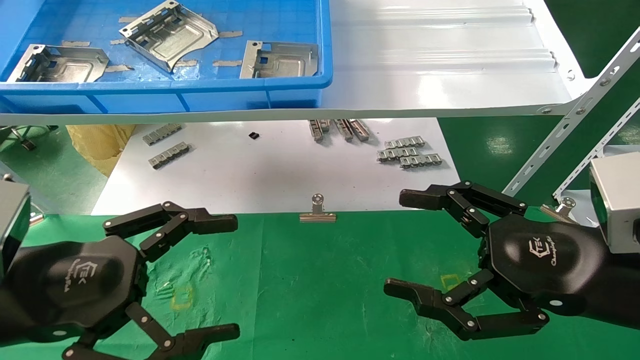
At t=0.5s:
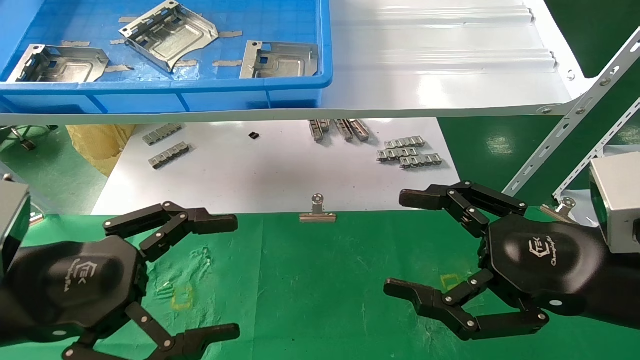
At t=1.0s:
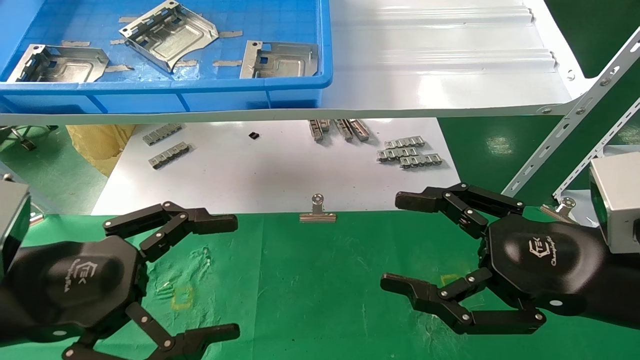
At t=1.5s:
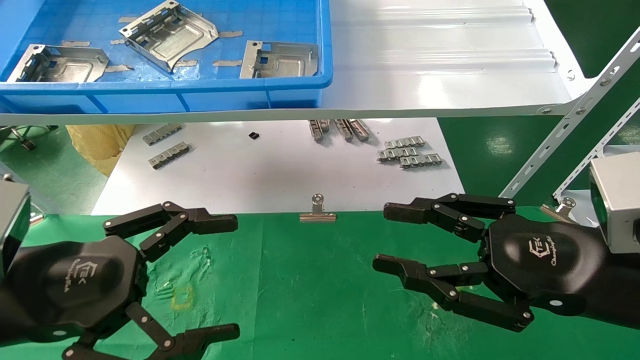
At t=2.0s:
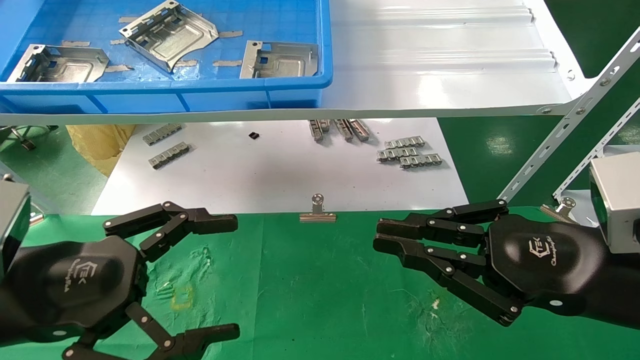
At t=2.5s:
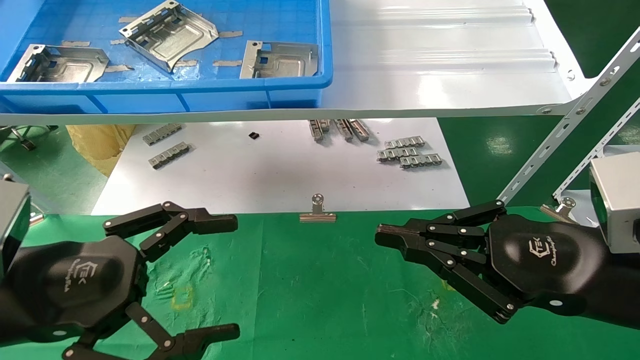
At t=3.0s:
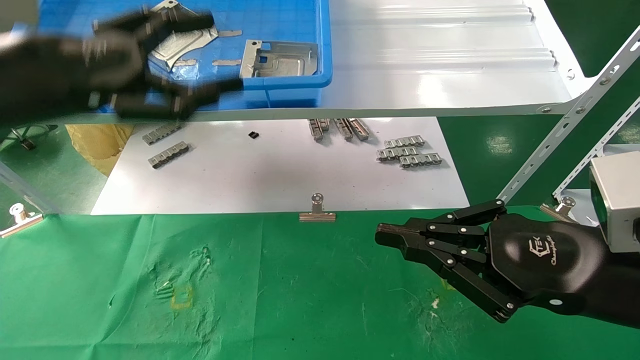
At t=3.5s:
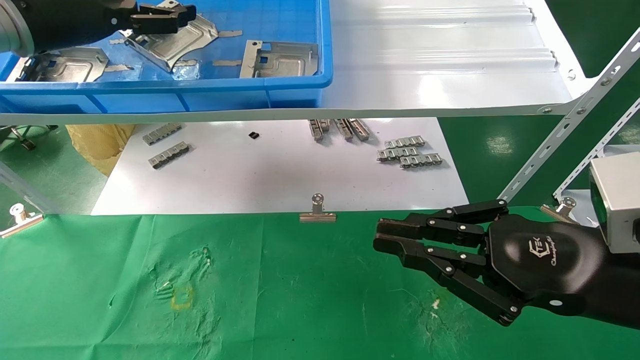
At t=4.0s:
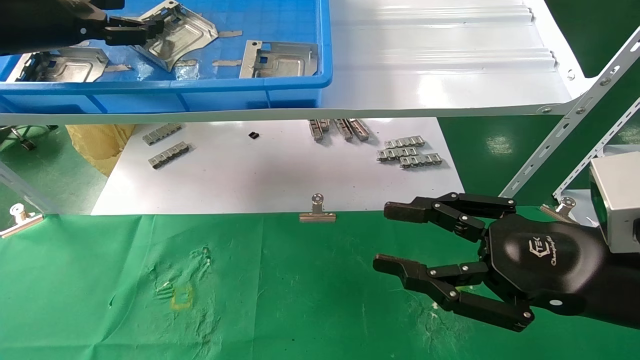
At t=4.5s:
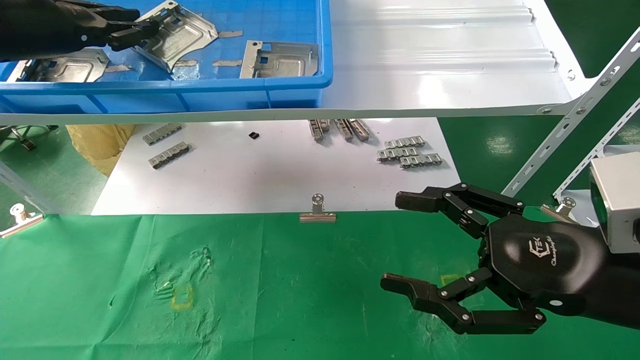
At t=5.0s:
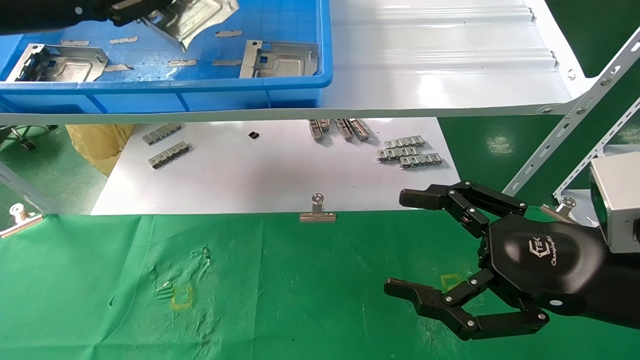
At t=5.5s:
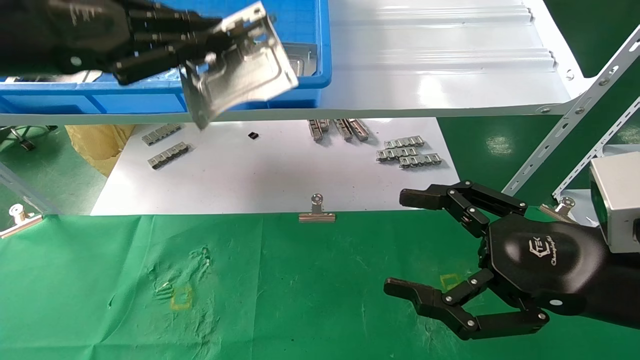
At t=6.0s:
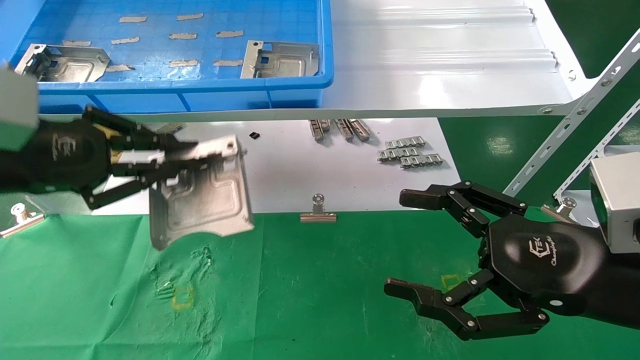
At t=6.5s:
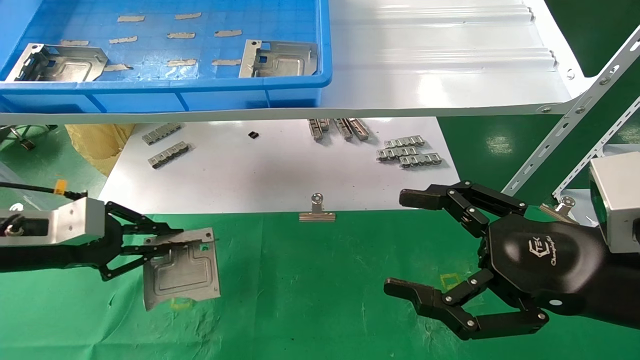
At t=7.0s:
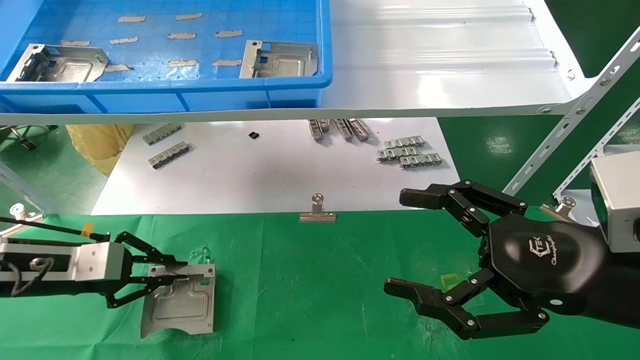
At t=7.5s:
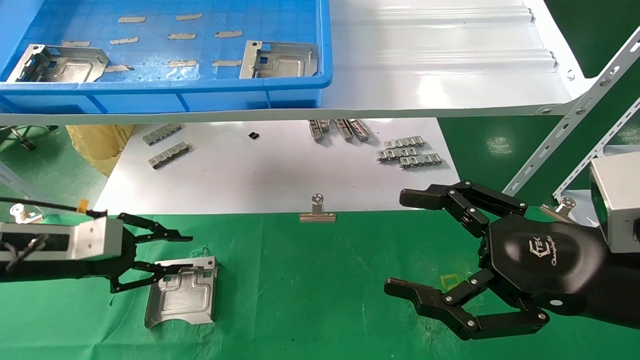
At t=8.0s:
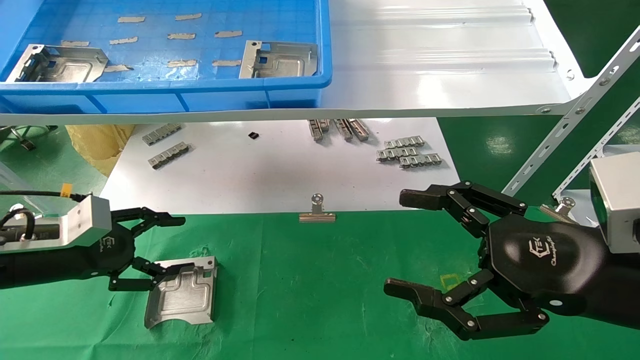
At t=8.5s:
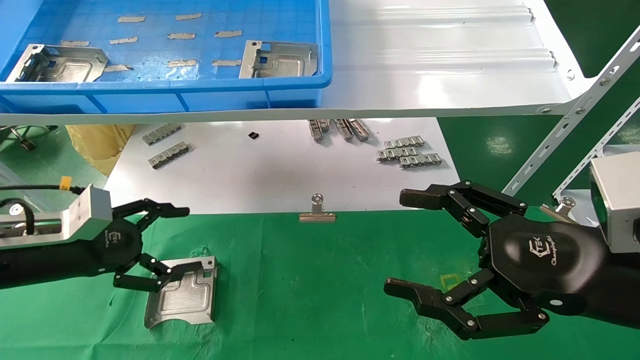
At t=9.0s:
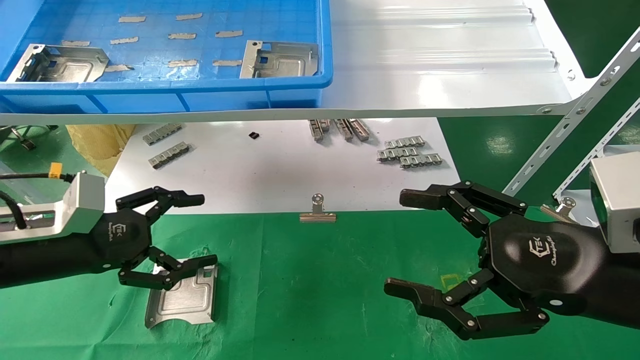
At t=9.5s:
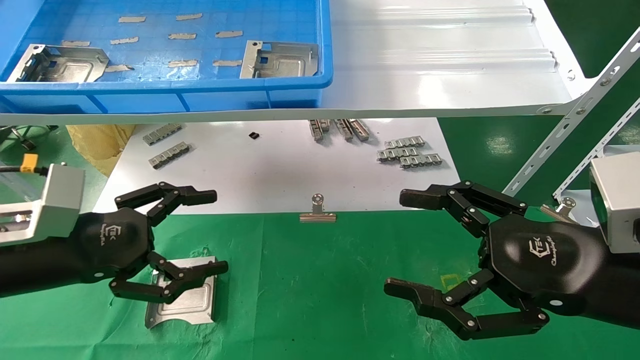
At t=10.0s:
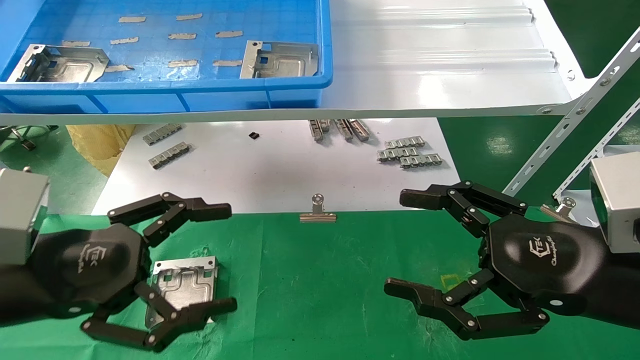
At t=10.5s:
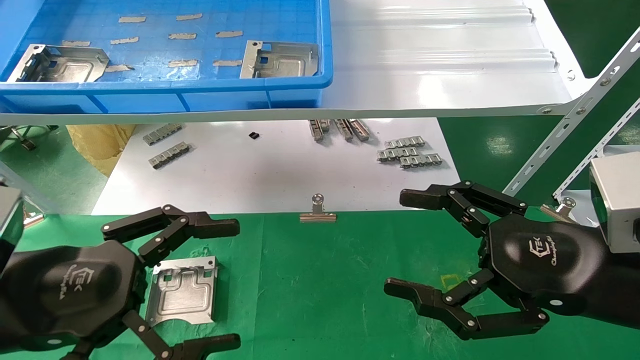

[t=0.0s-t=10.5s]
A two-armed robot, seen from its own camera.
Task of the whole recording: use the mechanical arm to pick up the parts and place them on the table.
Step, t=3.0s to t=4.5s: Pick up the hard drive bracket from the feeding area.
Step, t=5.0s to t=7.0s: Place the hard drive bracket into the box.
t=0.0s to t=2.0s: The right gripper closes.
t=2.0s to t=4.0s: The left gripper shifts approximately 30 cm upward and forward.
t=4.0s to t=6.5s: The left gripper shifts approximately 25 cm downward, and closes; the right gripper opens.
t=6.5s to t=8.5s: The left gripper opens up.
t=8.5s to t=10.5s: The left gripper shifts approximately 15 cm backward and to the right.
